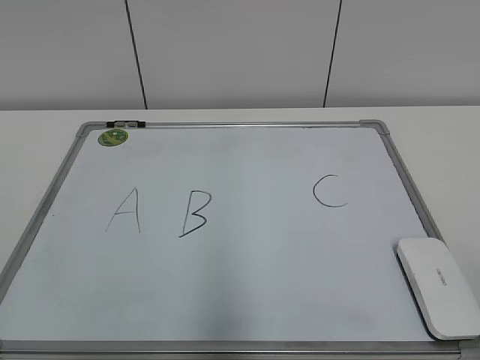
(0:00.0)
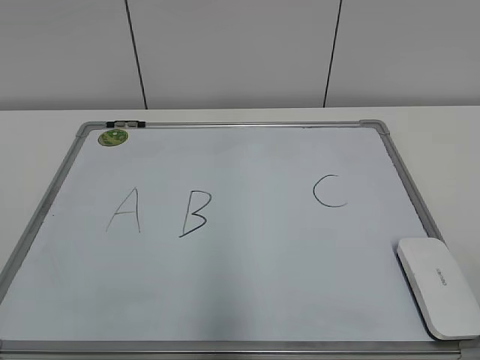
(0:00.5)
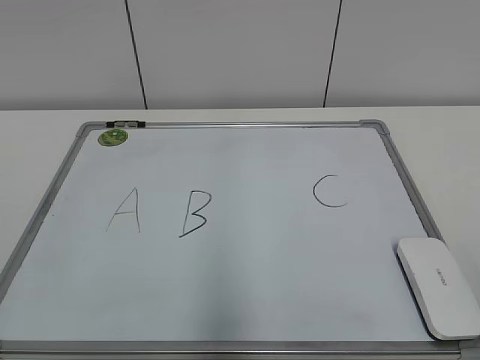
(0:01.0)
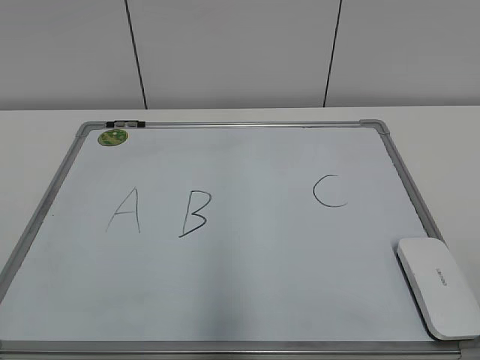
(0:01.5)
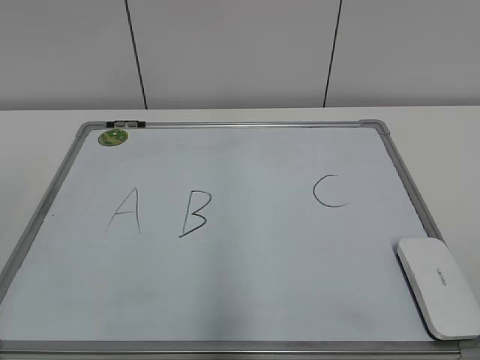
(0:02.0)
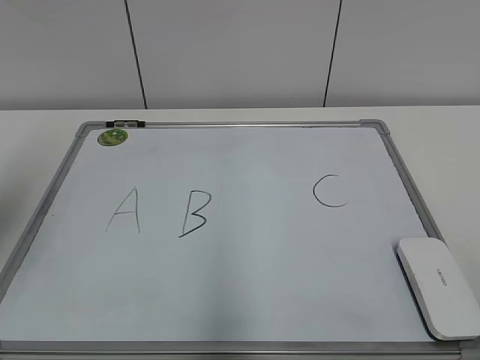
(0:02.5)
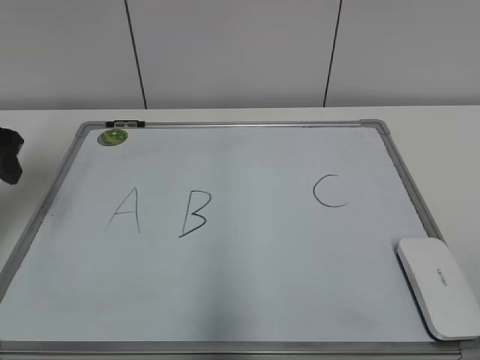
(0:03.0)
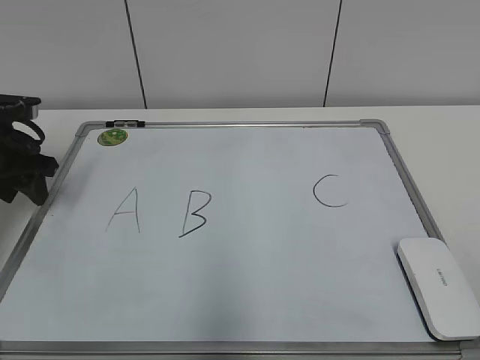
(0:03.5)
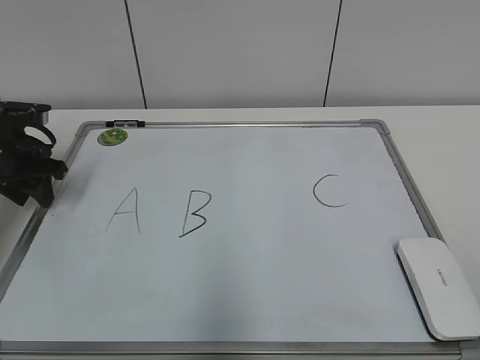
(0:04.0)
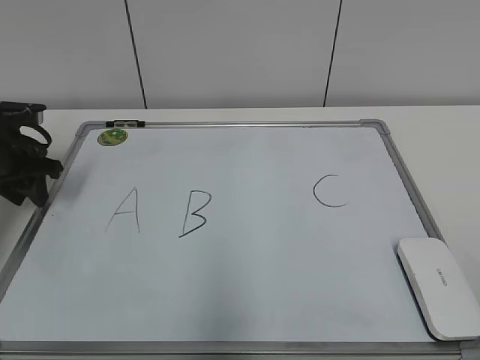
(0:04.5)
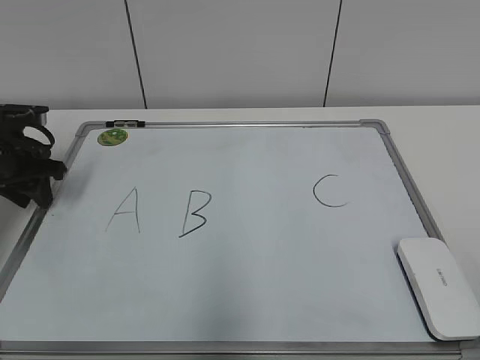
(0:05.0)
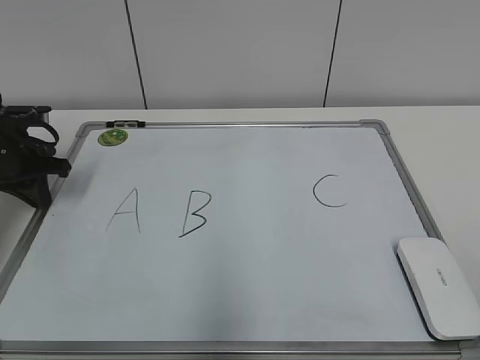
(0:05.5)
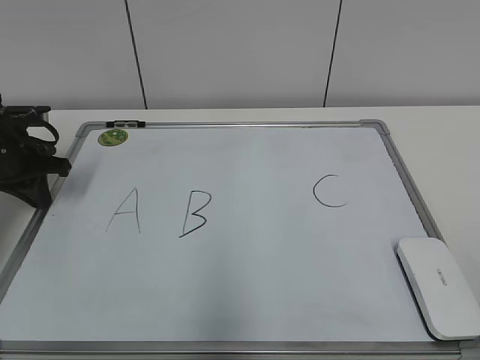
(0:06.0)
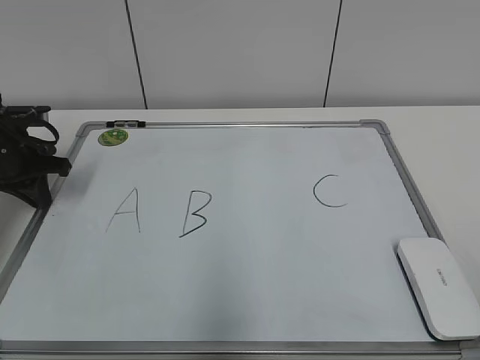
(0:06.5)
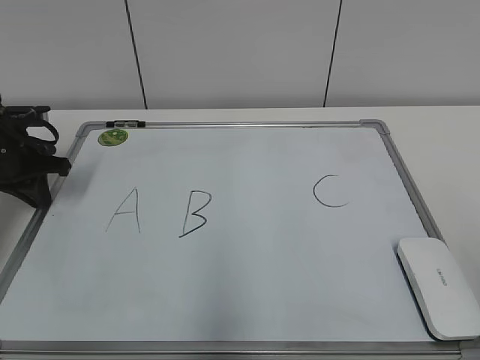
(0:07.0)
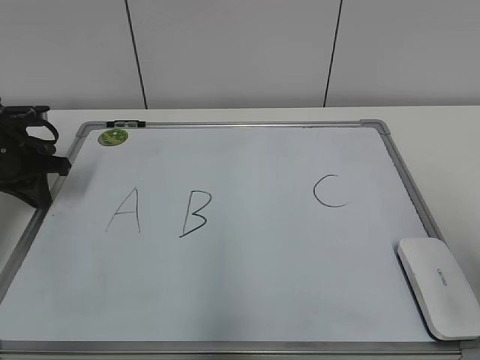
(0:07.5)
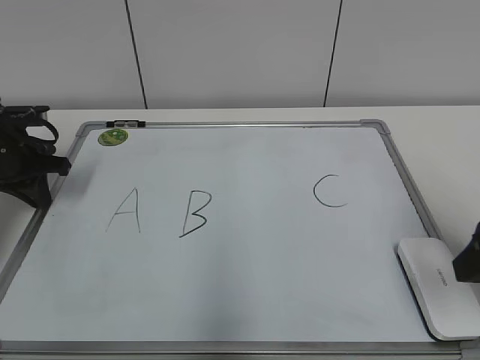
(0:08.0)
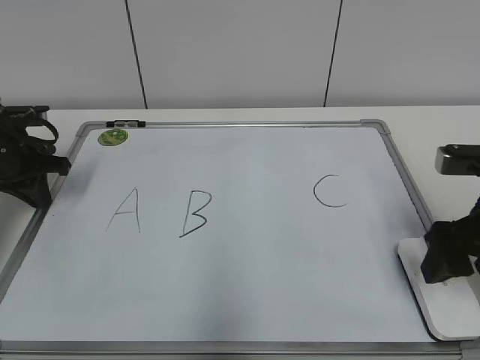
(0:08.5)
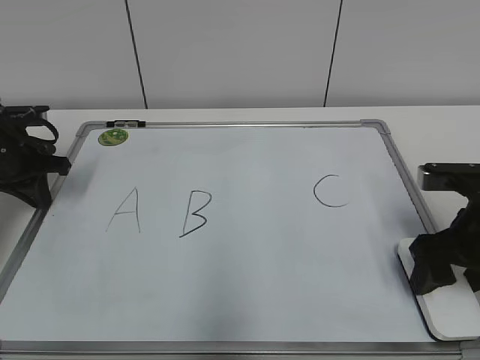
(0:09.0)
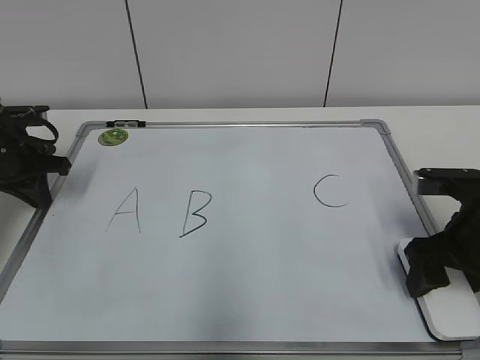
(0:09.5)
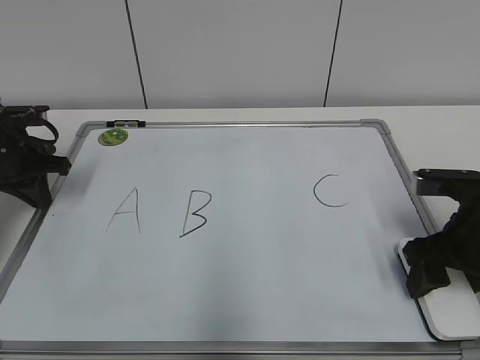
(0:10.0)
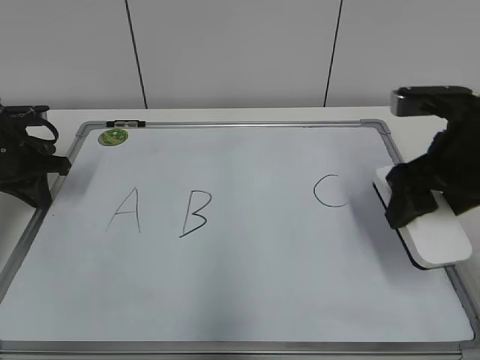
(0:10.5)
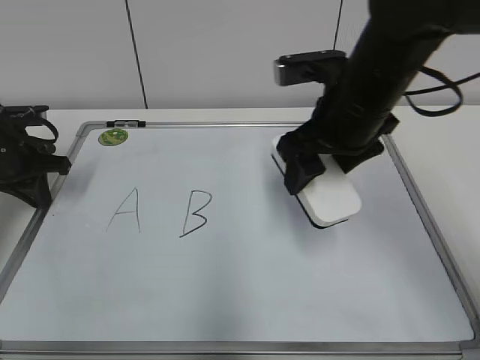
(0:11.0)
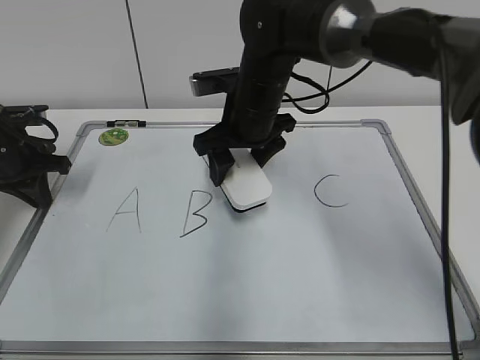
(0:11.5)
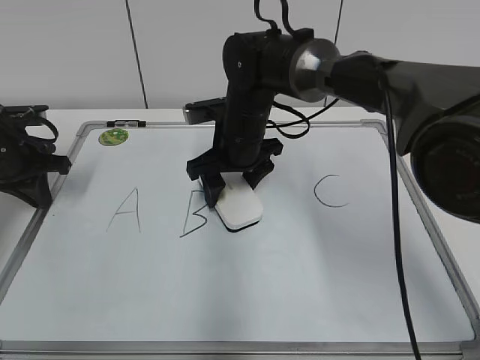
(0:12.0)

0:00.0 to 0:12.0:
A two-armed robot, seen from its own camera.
Task of the whole recording: pick up the eraser on the blackboard and erase the letter "B".
Step, 0:00.0 to 0:05.0: Hold the drawing board steady with your left hand.
Step, 0:05.5 to 0:09.5: Grab the eraser with your right hand.
0:02.0 to 0:04.0: The left gripper goes some 40 cm forward and downward, and closes up.
0:04.0 to 0:06.0: The left gripper closes its fingers.
0:06.0 to 0:08.0: The right gripper shifts some 20 cm forward.
0:08.0 to 0:10.0: The right gripper moves downward and forward, approximately 10 cm, and closes.
0:10.0 to 0:12.0: The right gripper heads to the left and forward, covering some 30 cm.

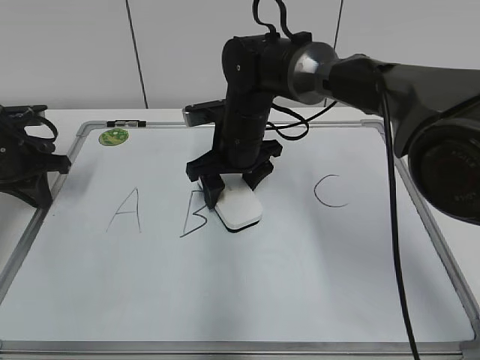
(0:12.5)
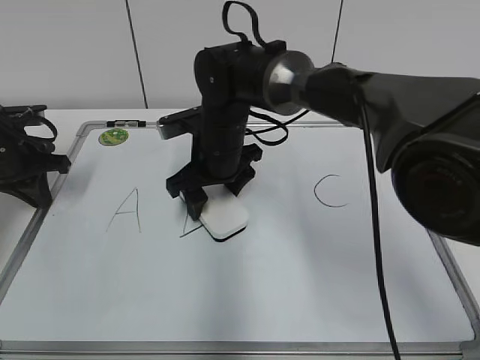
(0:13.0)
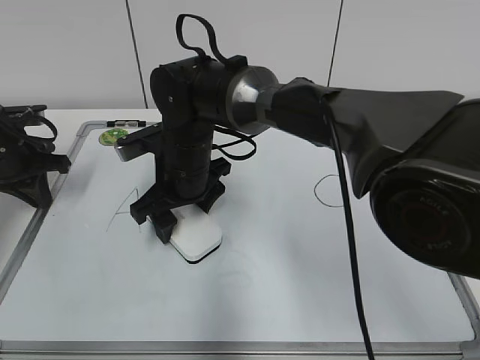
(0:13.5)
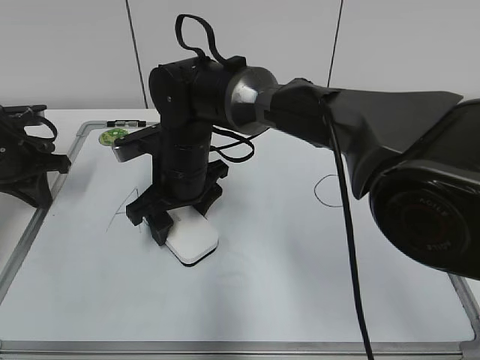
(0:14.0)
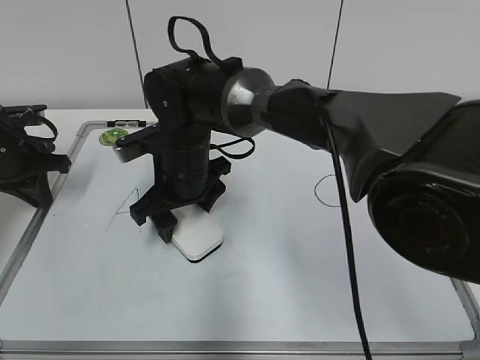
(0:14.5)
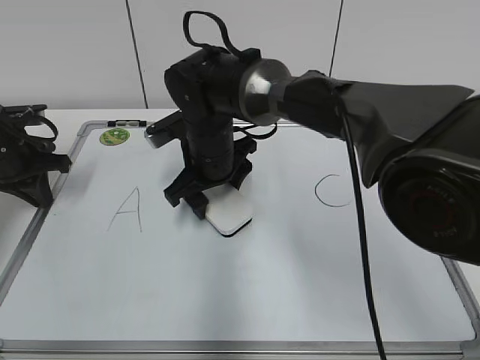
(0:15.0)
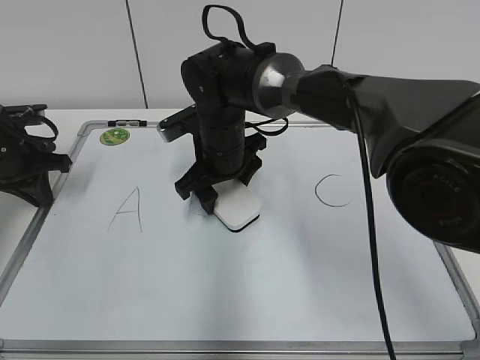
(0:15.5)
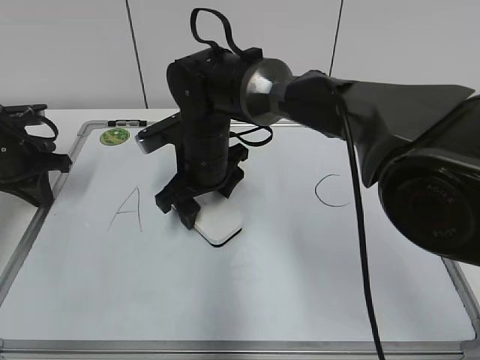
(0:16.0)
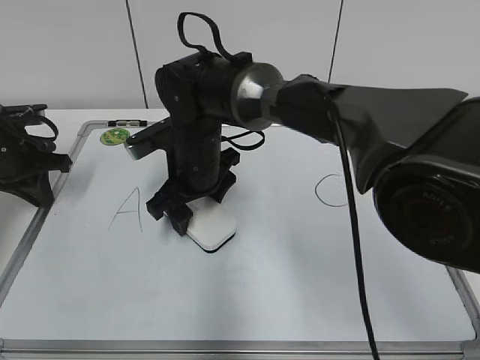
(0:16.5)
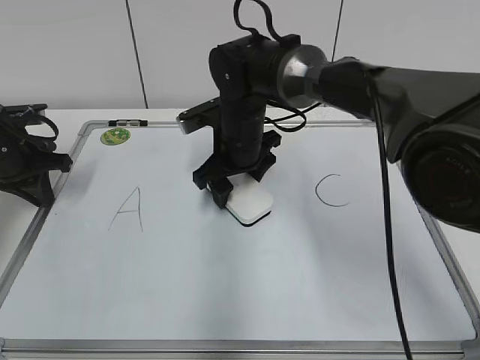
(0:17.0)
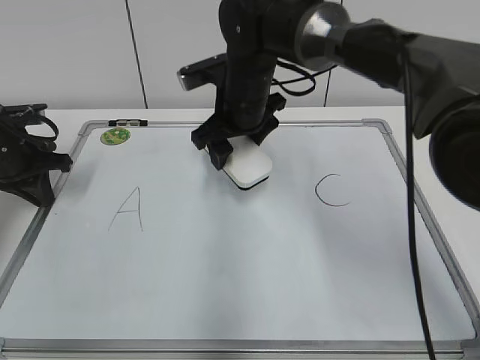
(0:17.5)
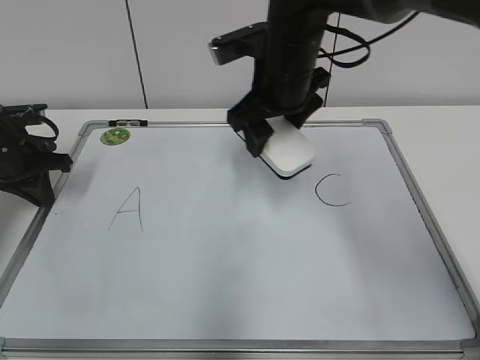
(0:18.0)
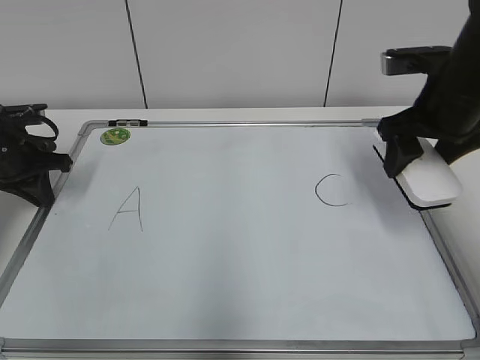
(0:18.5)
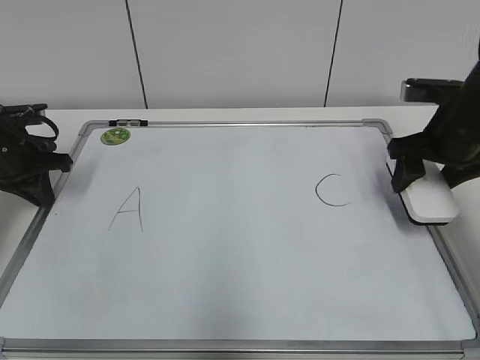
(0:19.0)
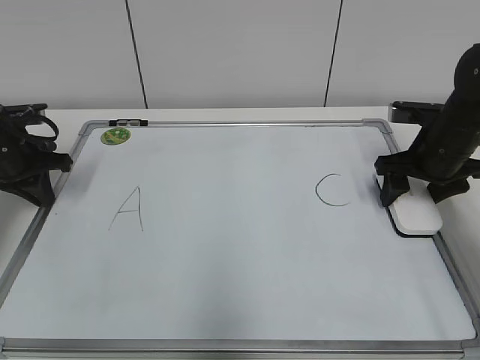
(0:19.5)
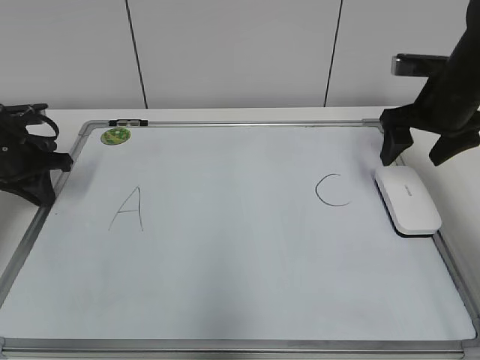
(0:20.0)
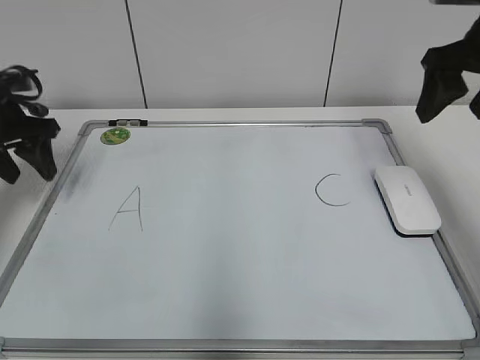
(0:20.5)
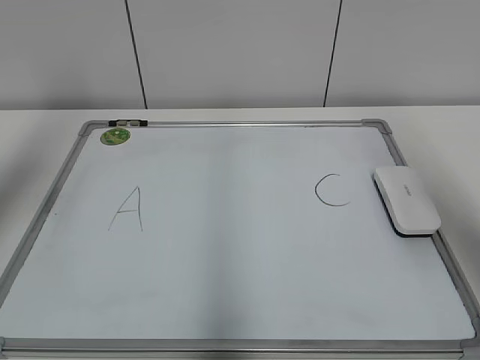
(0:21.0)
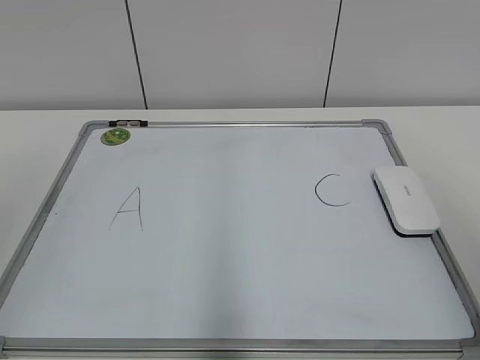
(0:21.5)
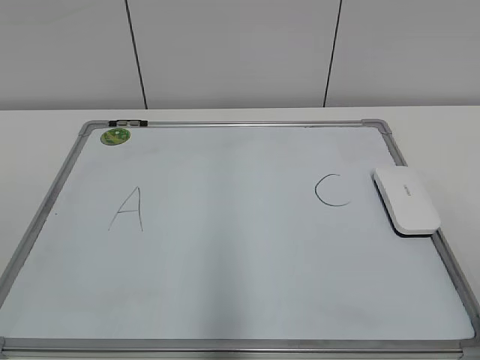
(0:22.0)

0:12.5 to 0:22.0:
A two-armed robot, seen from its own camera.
Task of the whole recording: pick up the eraser on the blackboard and erase the letter "B".
Step, 0:12.5 to 0:17.0: Erase the letter B with your right hand.
Step, 0:17.5 to 0:19.0: Put down the eraser with your right hand.
0:12.5 to 0:14.5: The right gripper moves to the left and backward, approximately 10 cm.
0:14.5 to 0:16.5: The grippers stay close to where they were, moving slightly.
0:16.5 to 0:18.0: The right gripper goes roughly 15 cm upward and to the right.
0:18.0 to 0:20.0: The right gripper heads to the right, covering about 20 cm, and opens up.
0:20.0 to 0:22.0: The right gripper heads backward, covering about 35 cm, and closes. Meanwhile the left gripper travels backward and upward by some 40 cm, and opens its fingers.

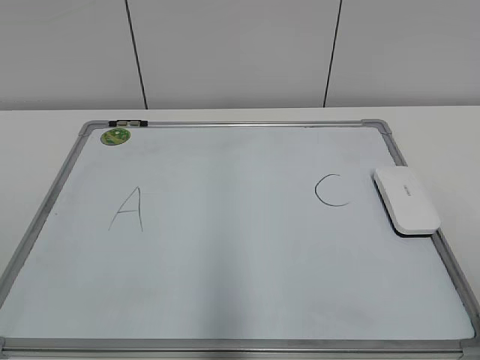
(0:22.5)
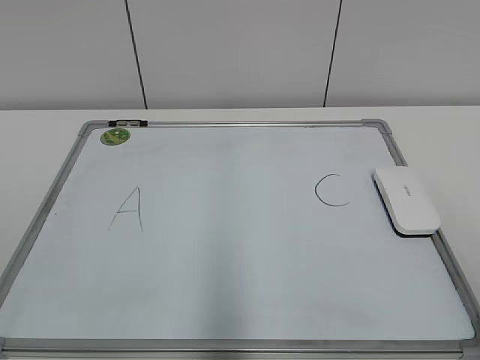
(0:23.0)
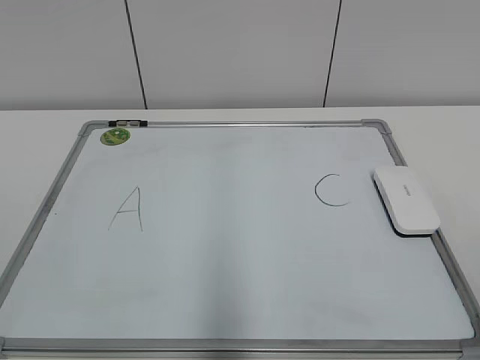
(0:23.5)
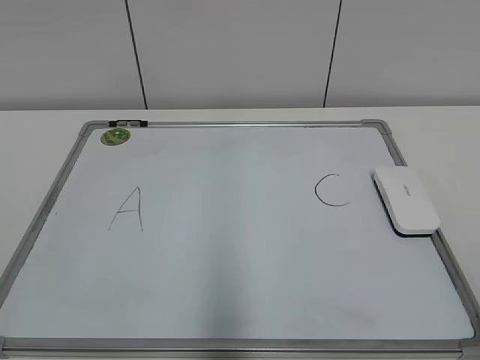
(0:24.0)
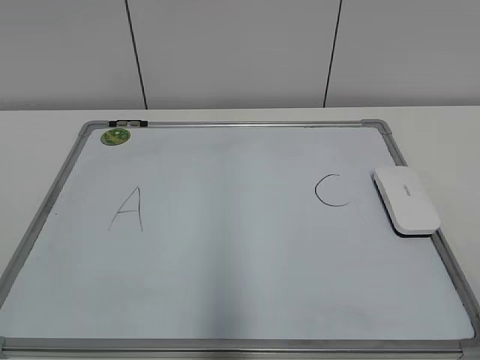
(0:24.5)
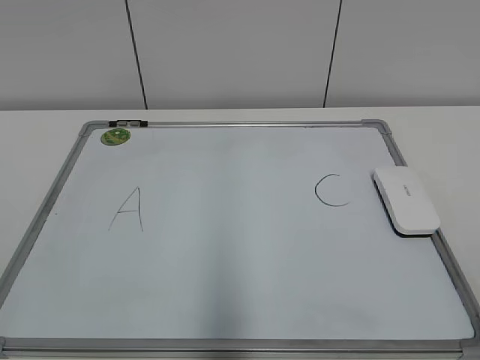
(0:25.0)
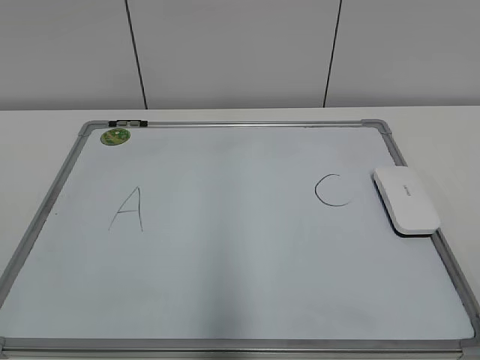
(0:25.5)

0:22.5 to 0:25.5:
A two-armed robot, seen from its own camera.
Task of the whole recording: pick up the eraser on the blackboard and erase the letter "B".
0:24.0 to 0:25.5: Both grippers stay put.

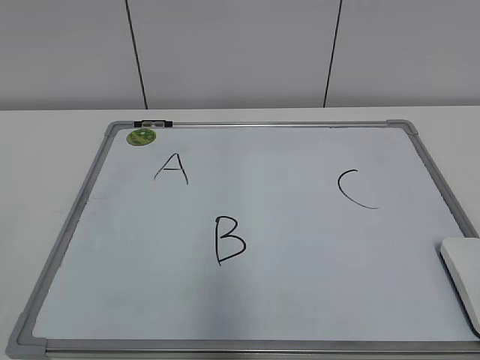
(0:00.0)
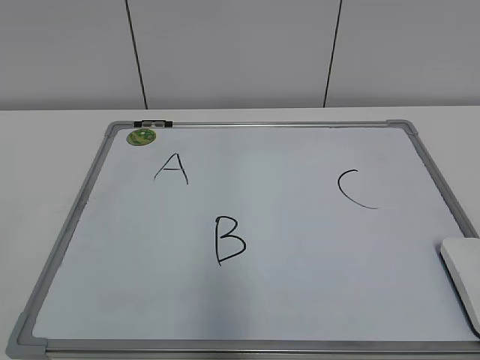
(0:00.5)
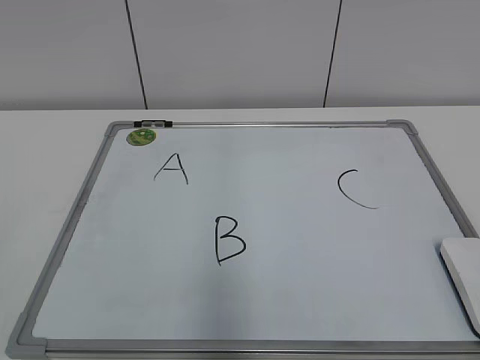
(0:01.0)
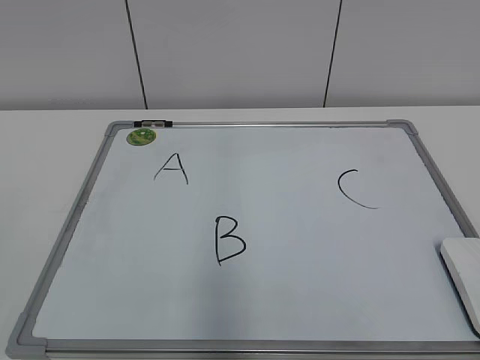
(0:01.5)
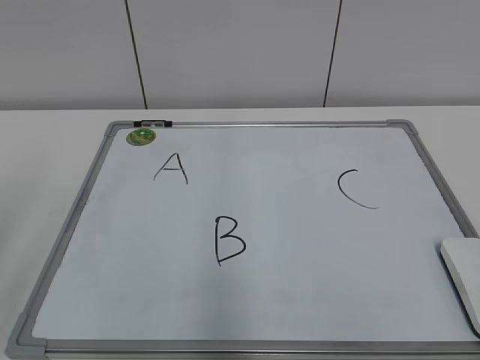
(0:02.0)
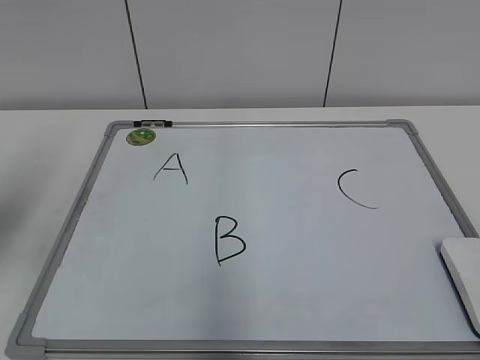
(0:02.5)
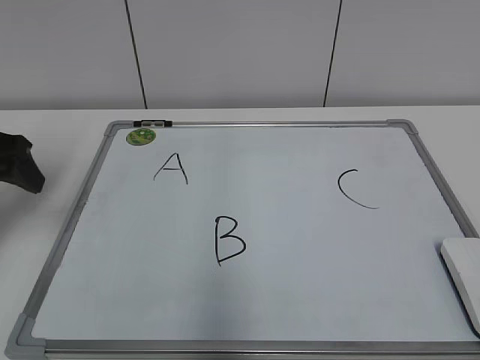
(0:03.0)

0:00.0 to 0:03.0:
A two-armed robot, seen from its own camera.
Task of the whole recording: pick up the eraser on the blackboard and erase the letter "B".
0:01.5 to 0:03.0: The left gripper moves forward, roughly 30 cm.
